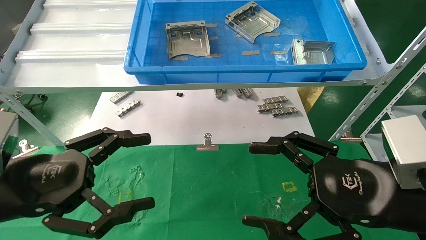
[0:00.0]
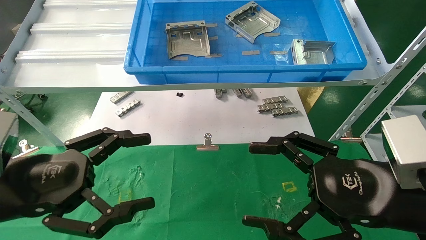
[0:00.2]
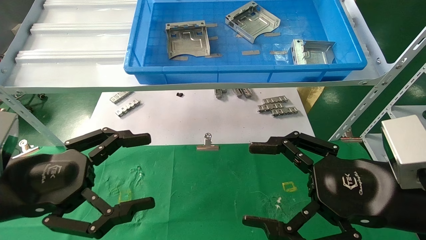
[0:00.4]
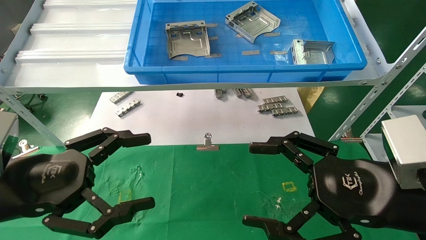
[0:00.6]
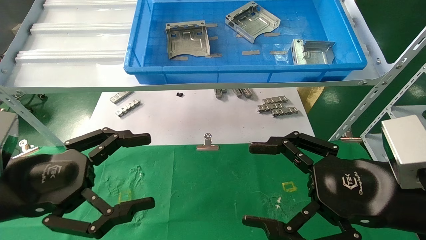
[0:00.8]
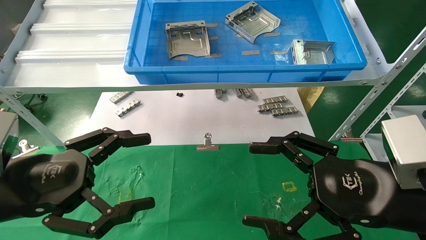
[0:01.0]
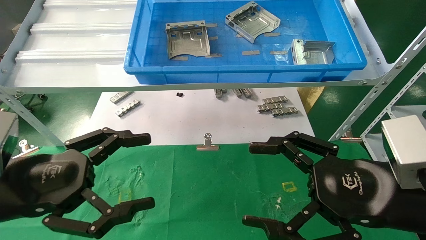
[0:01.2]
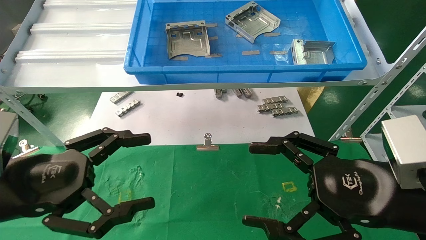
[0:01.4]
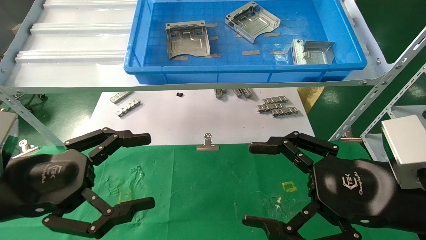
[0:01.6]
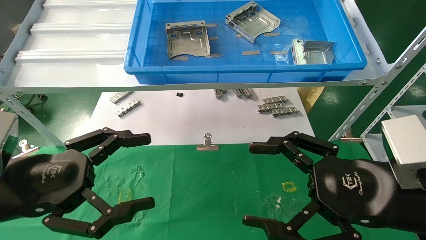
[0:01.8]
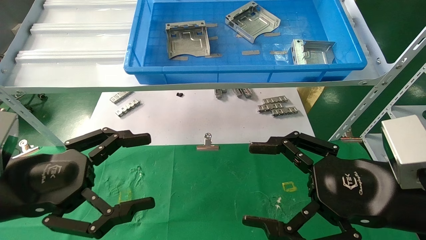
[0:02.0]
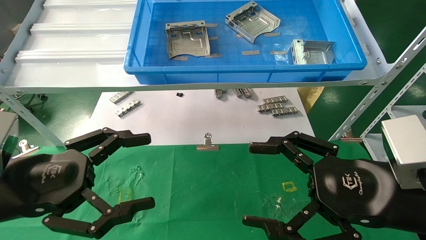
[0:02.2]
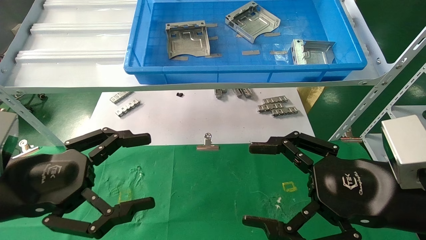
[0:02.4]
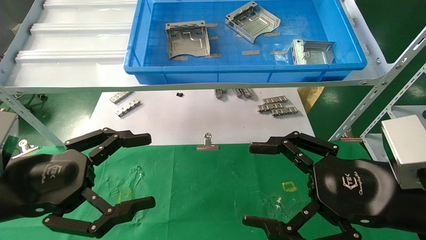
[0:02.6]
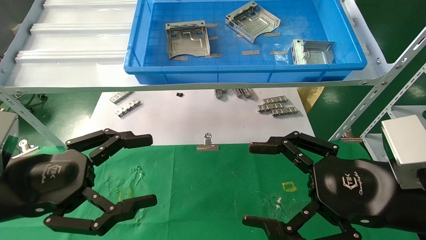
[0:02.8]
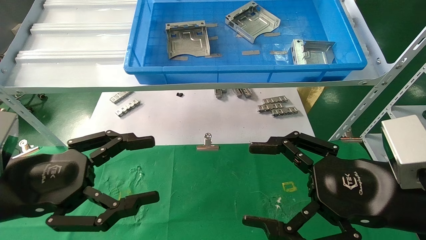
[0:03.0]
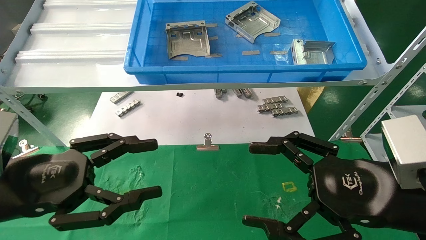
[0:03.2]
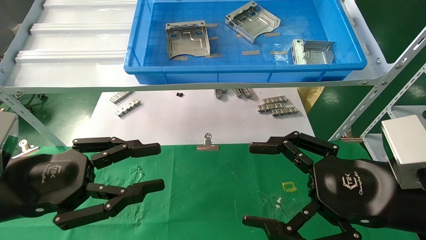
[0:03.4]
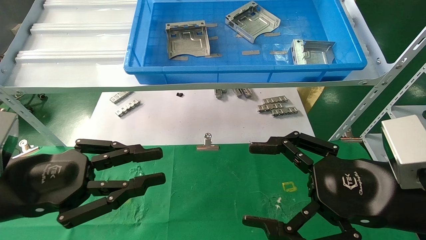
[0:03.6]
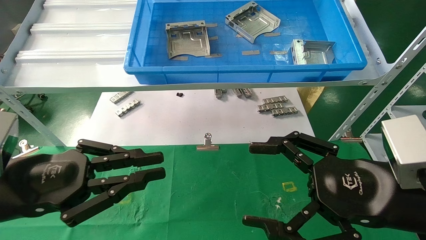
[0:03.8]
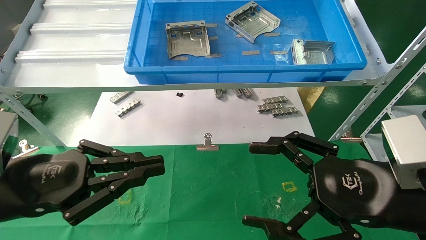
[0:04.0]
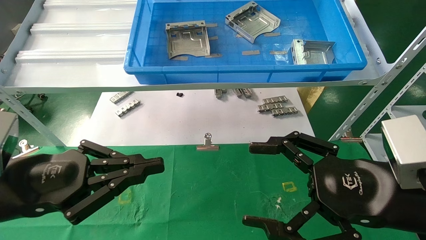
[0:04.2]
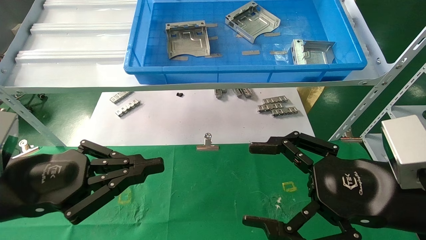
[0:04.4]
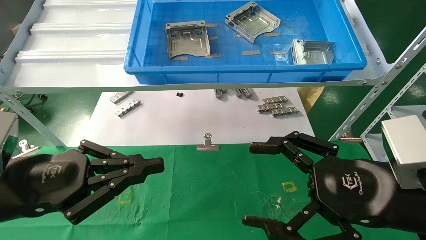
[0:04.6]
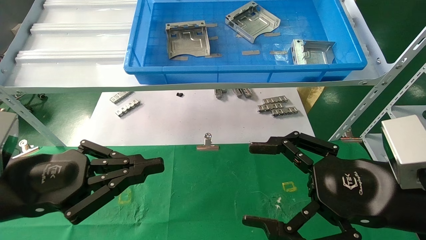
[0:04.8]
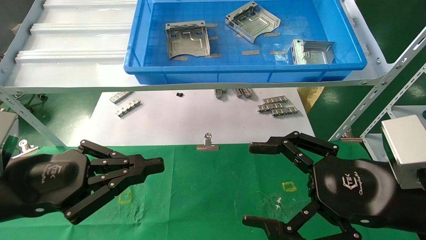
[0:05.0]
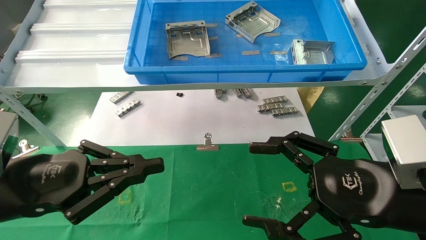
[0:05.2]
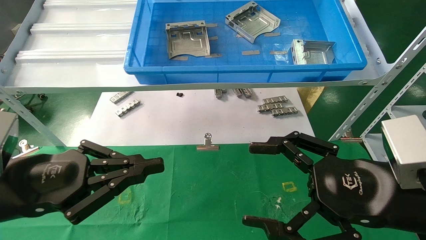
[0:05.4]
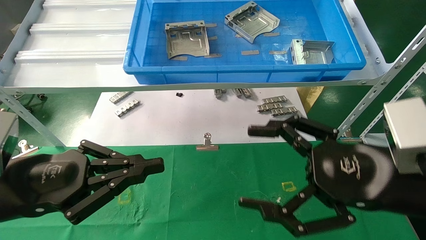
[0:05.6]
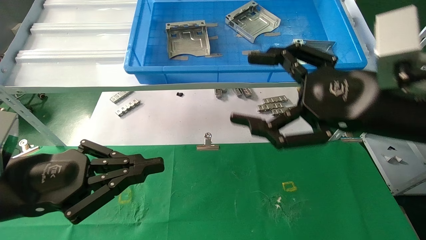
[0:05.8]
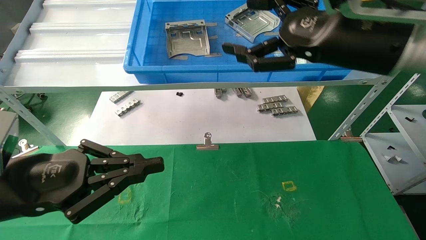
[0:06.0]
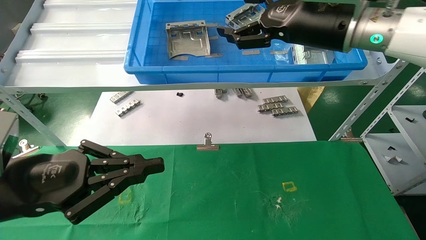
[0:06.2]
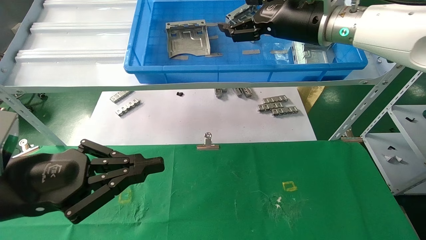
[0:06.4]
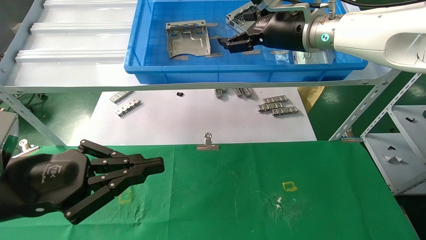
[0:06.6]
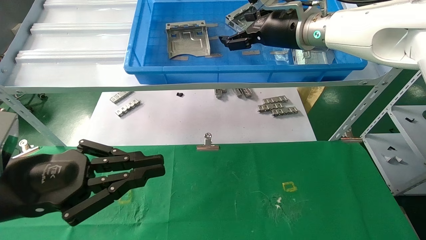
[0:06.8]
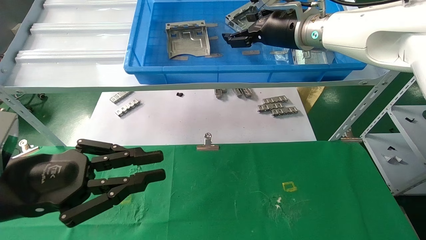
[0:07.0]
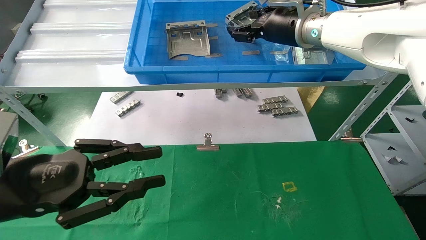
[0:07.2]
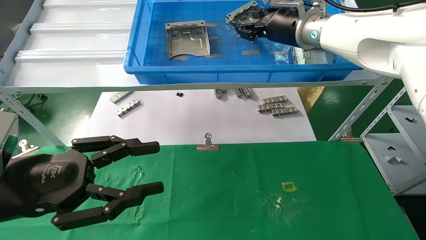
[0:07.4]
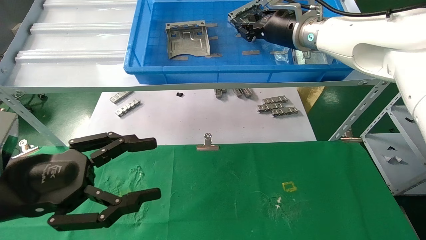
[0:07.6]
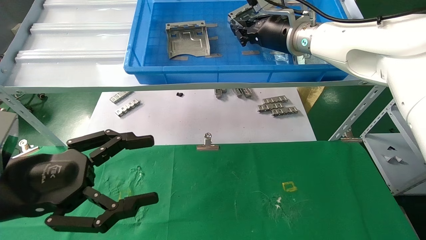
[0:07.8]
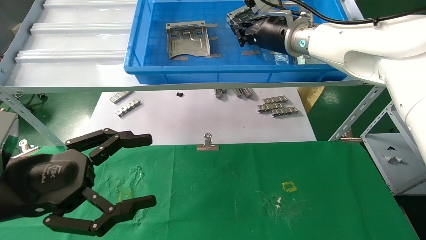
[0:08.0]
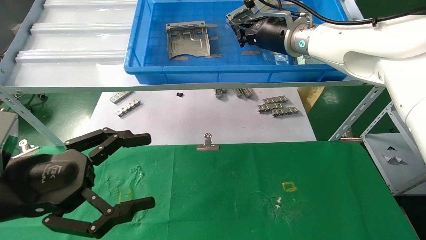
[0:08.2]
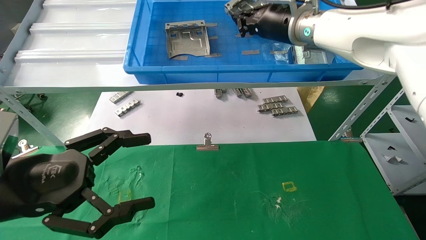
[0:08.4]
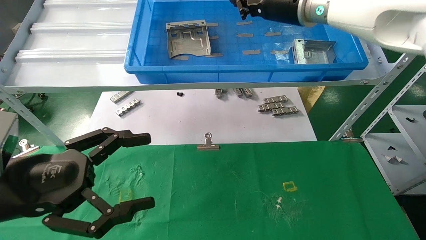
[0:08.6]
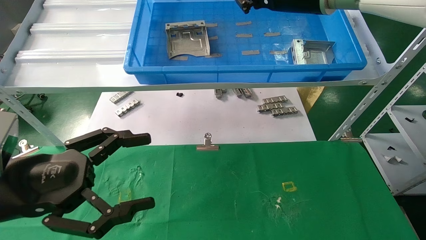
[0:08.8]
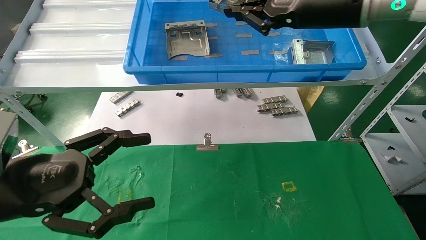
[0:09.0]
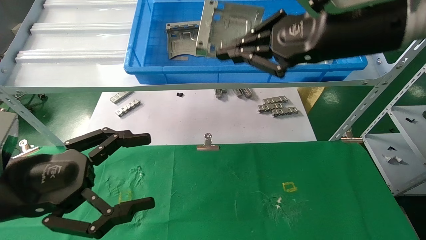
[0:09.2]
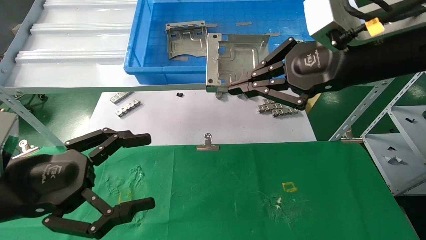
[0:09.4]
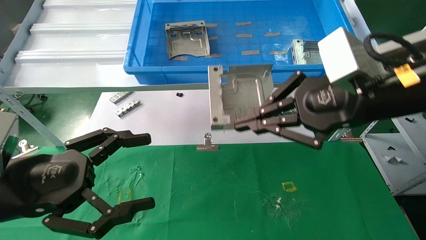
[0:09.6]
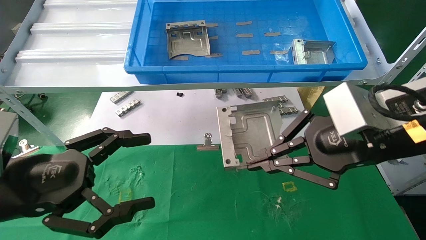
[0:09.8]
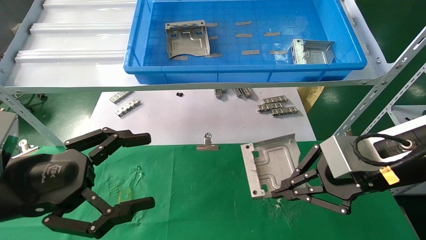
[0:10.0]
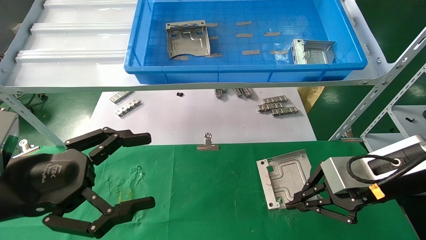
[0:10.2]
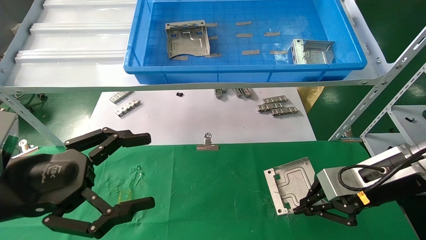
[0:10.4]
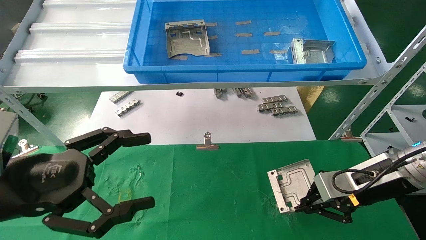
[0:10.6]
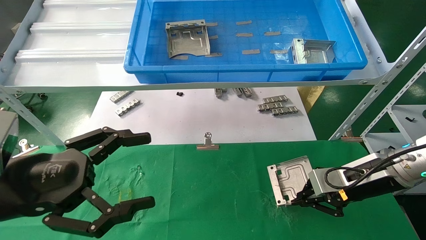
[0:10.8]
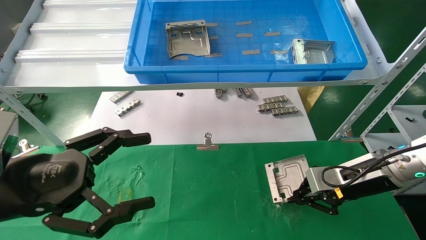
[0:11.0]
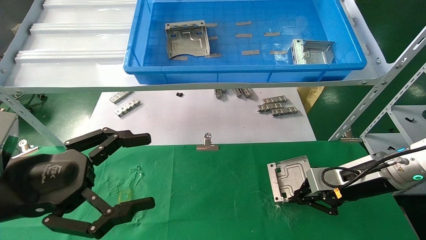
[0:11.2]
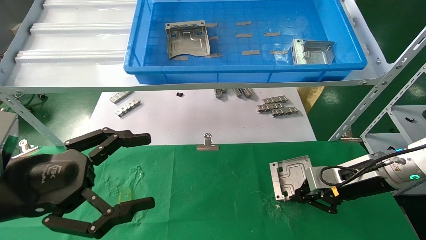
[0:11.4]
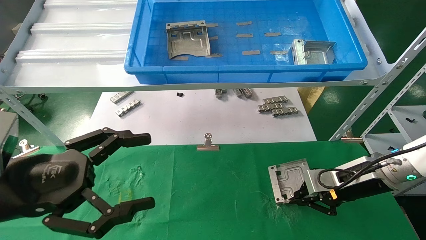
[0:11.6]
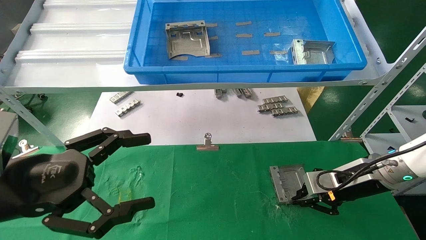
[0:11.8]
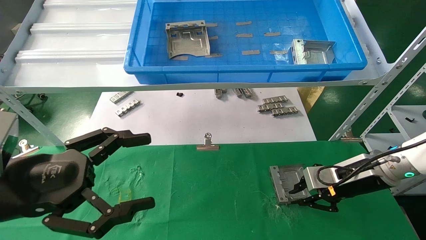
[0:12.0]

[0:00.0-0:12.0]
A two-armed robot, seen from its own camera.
Task of the whole recording: use the mechanical arm to pick up the parts and place them on the table.
Step, 0:03.4 to 0:09.0: Pick up the hard drive bracket from the feeding area.
0:00.0 to 0:03.0: The two grippers keep their place.
0:03.0 to 0:04.4: The left gripper closes its fingers.
0:04.4 to 0:06.0: The right gripper travels upward and forward by some 20 cm.
0:06.0 to 0:07.6: The right gripper heads forward, covering about 15 cm, and closes; the left gripper opens its fingers.
0:07.6 to 0:09.0: The right gripper heads backward, covering some 10 cm, and closes up. The left gripper opens its fingers.
0:09.0 to 0:10.4: The right gripper travels downward and to the right by roughly 25 cm.
0:10.4 to 0:12.0: The right gripper travels forward by about 5 cm.

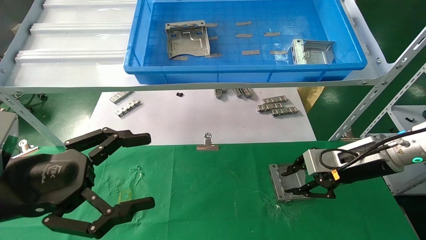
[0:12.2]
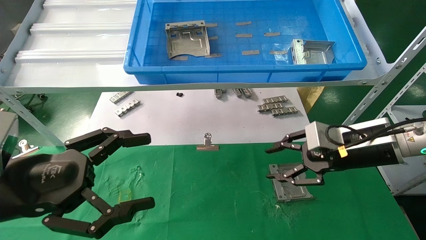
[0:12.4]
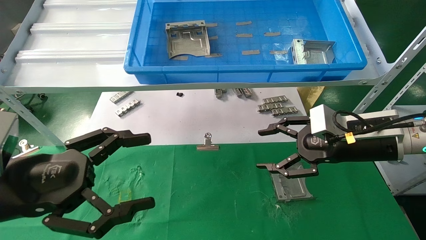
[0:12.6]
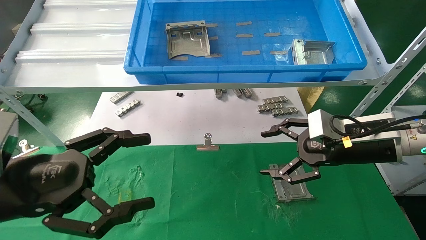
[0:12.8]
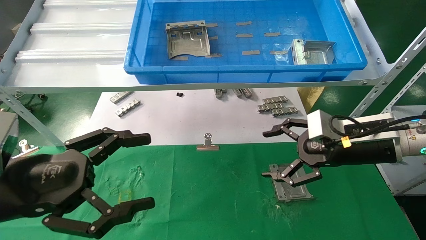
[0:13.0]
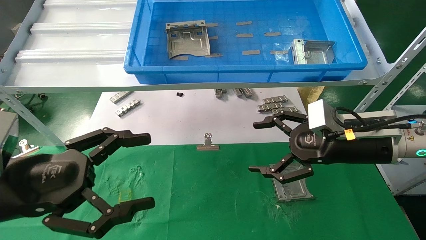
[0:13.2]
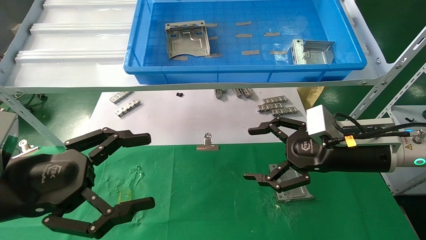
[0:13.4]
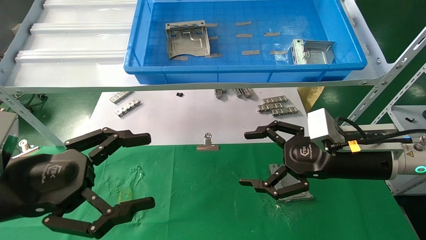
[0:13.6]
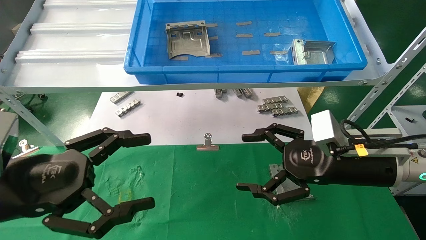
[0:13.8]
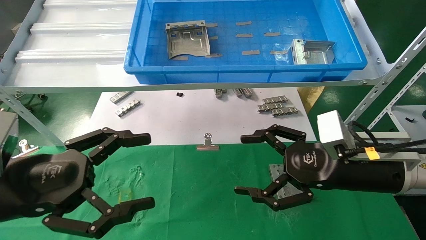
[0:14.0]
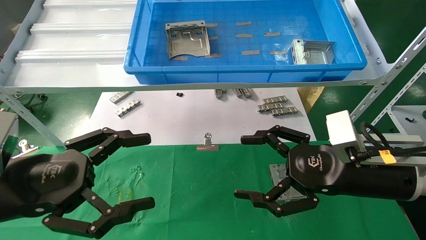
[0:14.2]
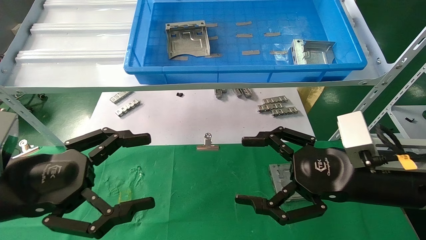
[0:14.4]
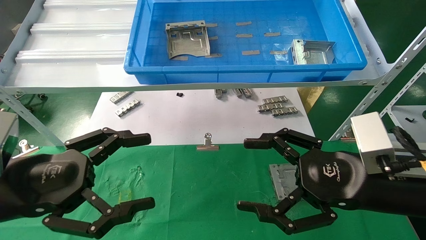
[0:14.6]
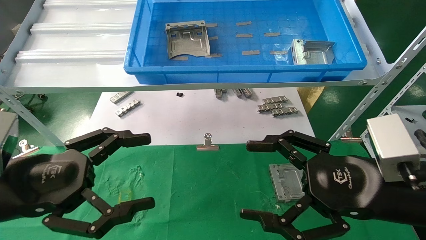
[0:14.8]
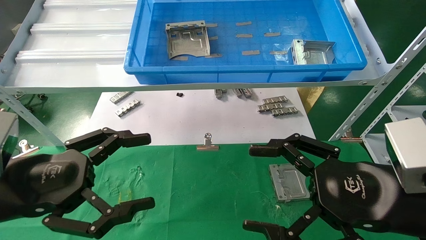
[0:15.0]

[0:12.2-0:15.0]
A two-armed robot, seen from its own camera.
Task of the whole recording: use the mechanical arm to pick up the parts and place them on the table.
0:12.2 to 0:13.6: The right gripper moves about 5 cm, and opens.
0:13.6 to 0:15.0: The right gripper is displaced backward by roughly 10 cm.
